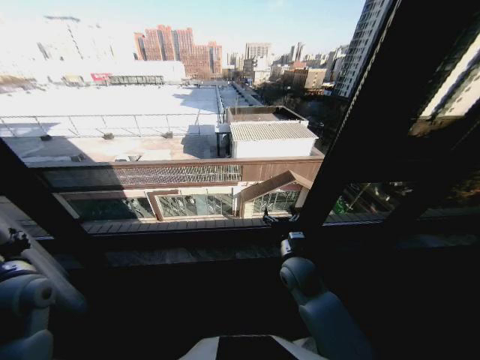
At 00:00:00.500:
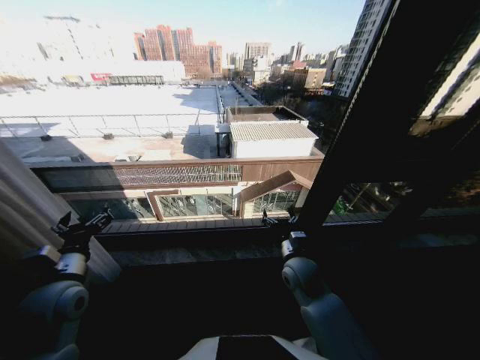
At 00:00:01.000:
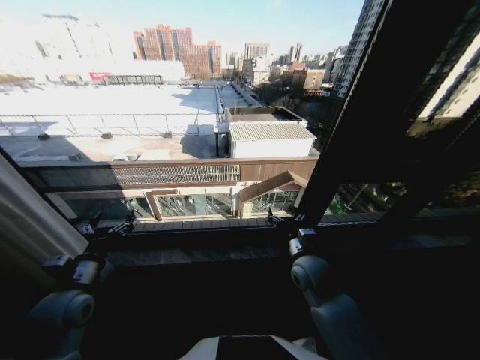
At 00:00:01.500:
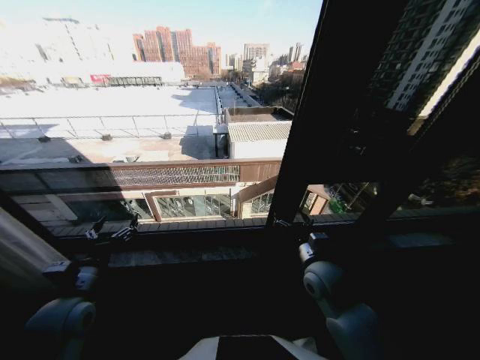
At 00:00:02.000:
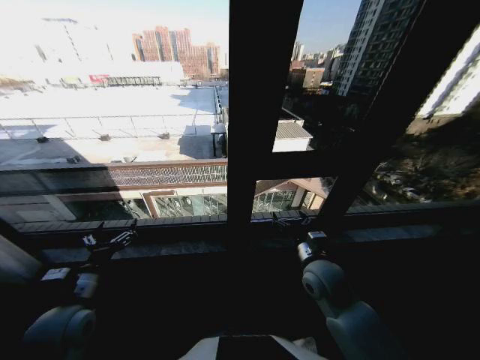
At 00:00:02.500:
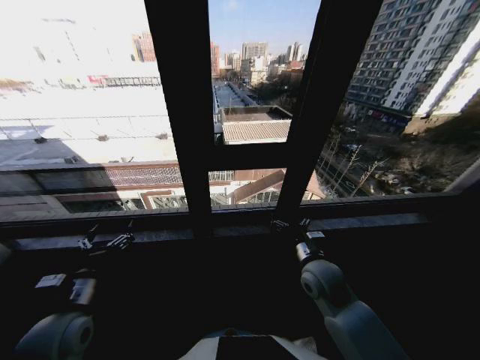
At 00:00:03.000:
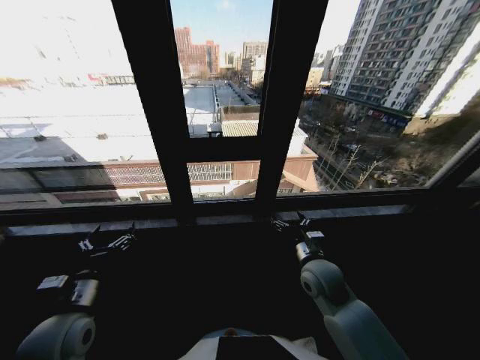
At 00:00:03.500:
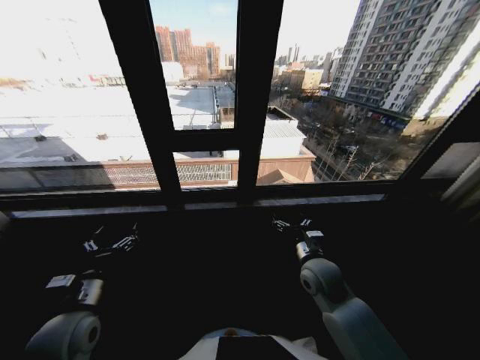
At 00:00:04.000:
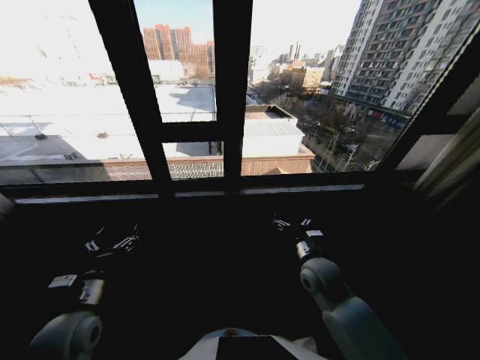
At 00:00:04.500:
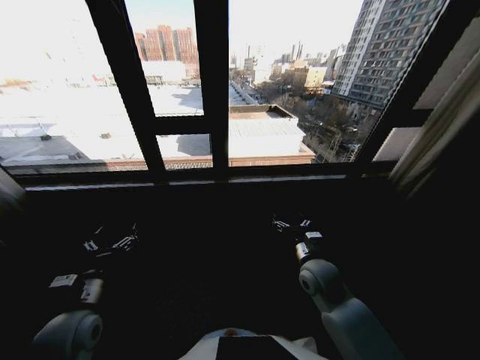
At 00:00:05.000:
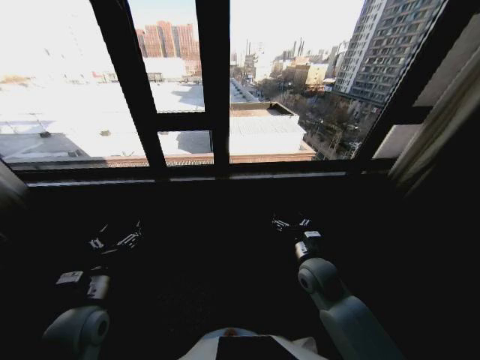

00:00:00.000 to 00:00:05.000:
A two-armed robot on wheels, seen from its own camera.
Task of the whole recording: Open the curtains by pulling them apart, changing their state from closed to fully open.
00:00:00.000 to 00:00:02.500: The right gripper shifts by roughly 5 cm. The left gripper travels to the right and backward by roughly 10 cm, and opens its fingers.
